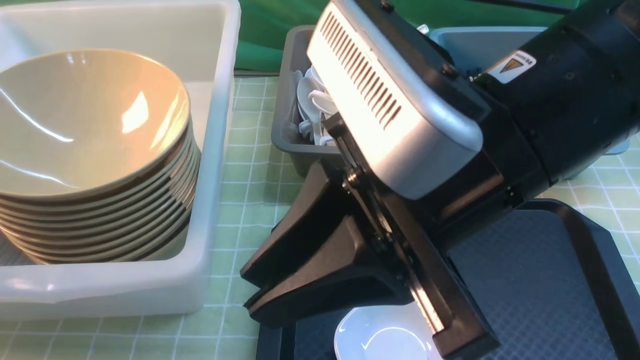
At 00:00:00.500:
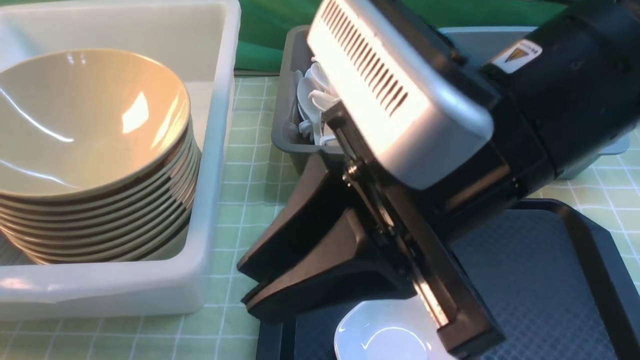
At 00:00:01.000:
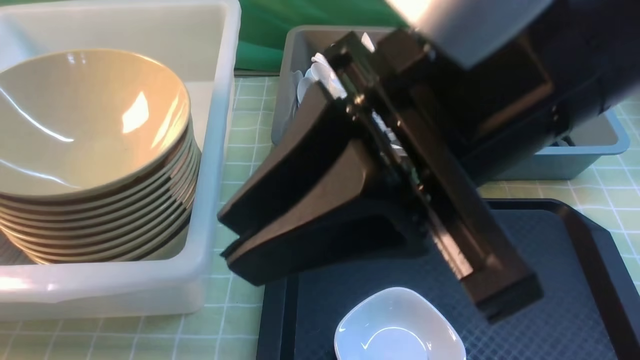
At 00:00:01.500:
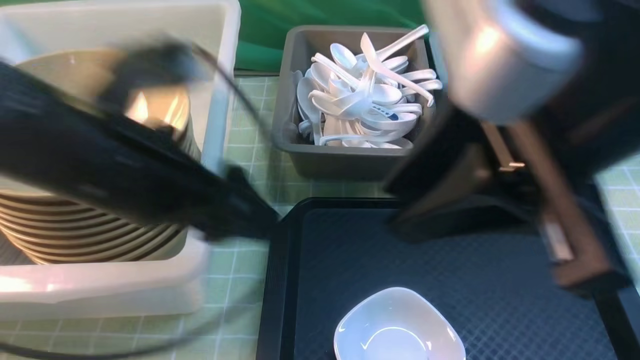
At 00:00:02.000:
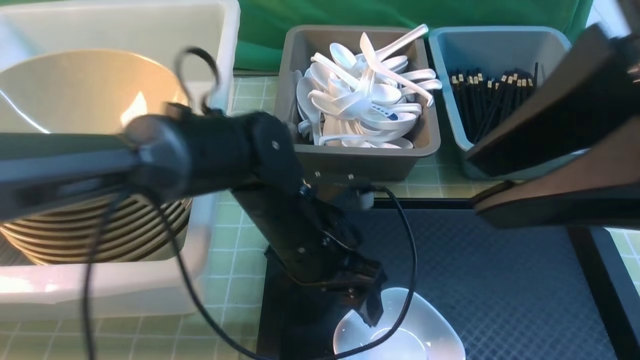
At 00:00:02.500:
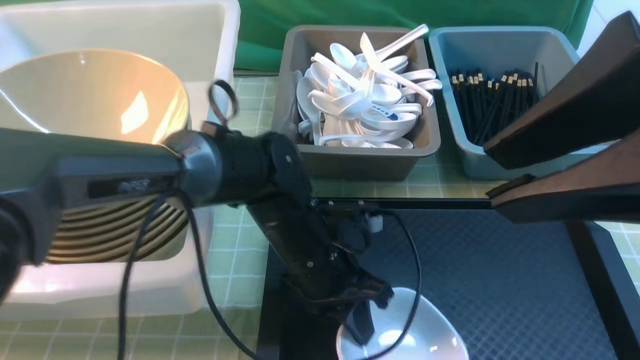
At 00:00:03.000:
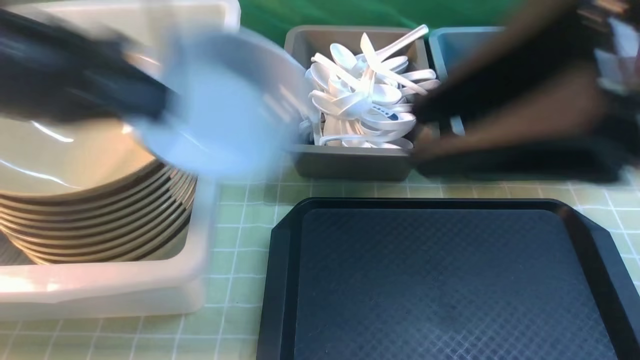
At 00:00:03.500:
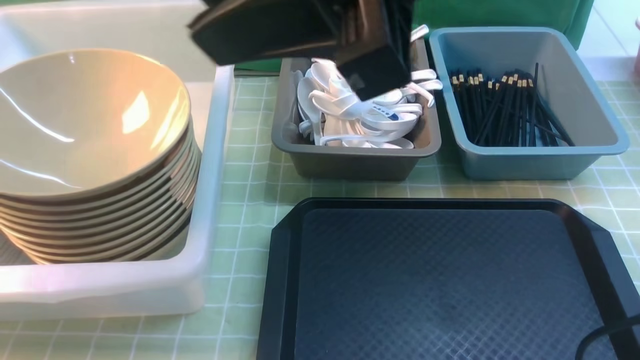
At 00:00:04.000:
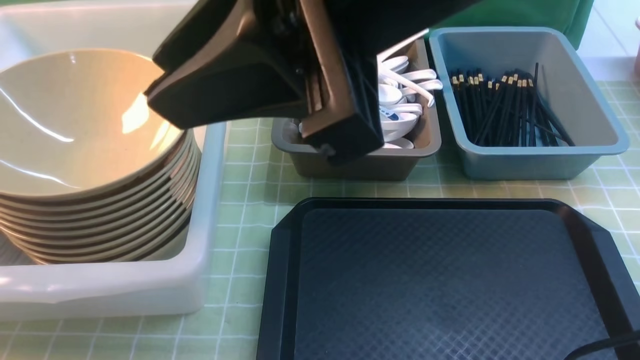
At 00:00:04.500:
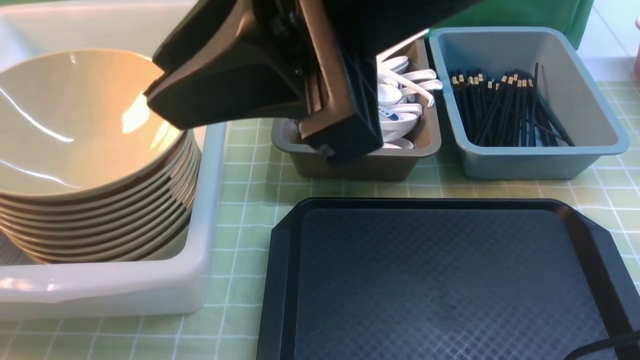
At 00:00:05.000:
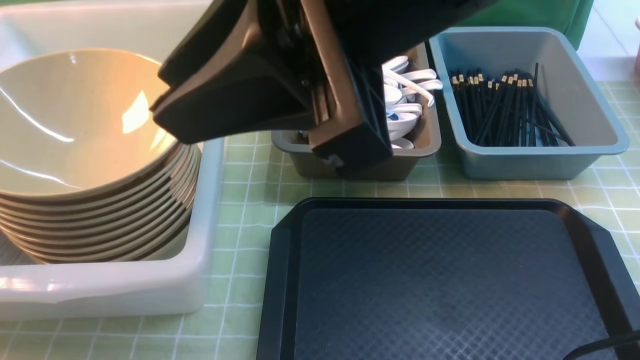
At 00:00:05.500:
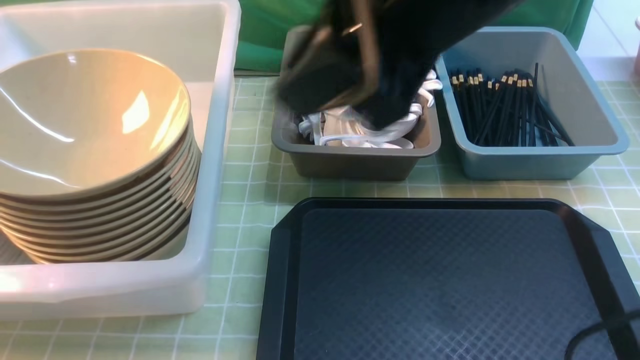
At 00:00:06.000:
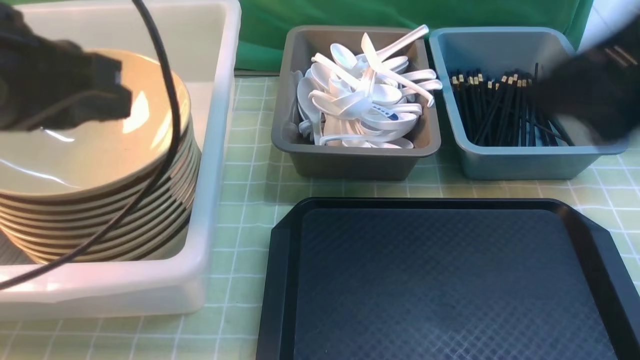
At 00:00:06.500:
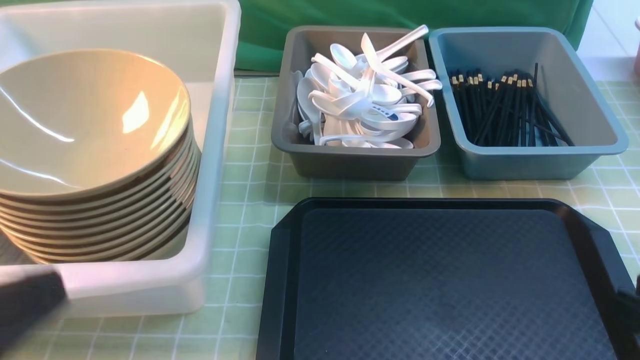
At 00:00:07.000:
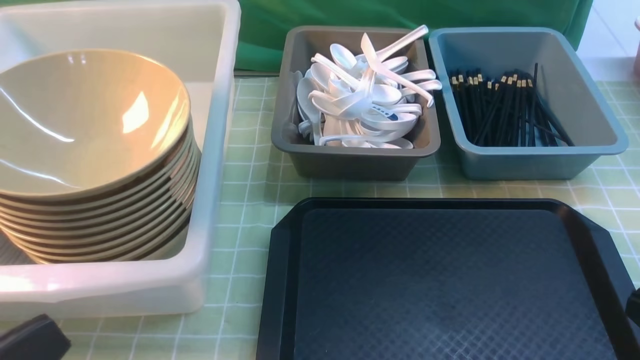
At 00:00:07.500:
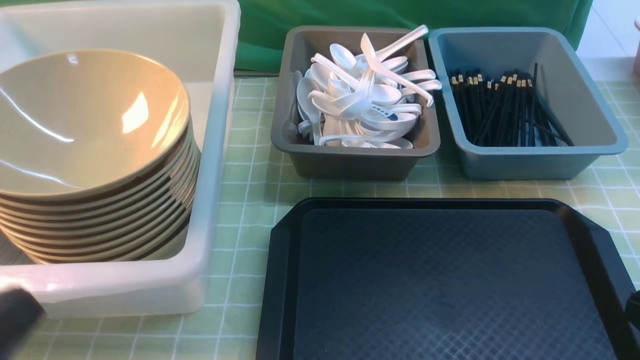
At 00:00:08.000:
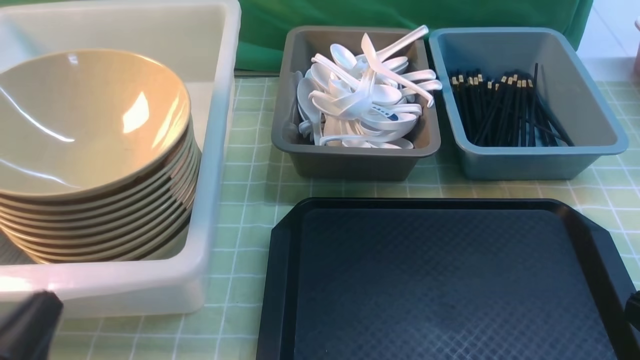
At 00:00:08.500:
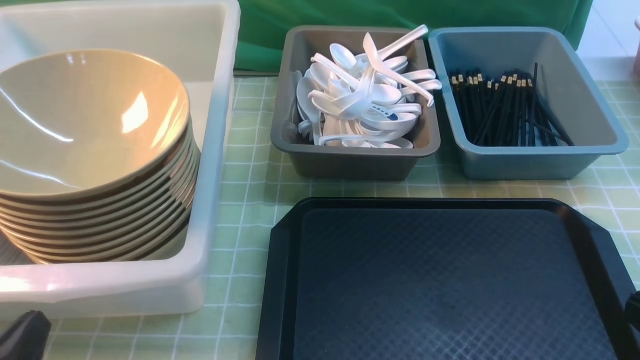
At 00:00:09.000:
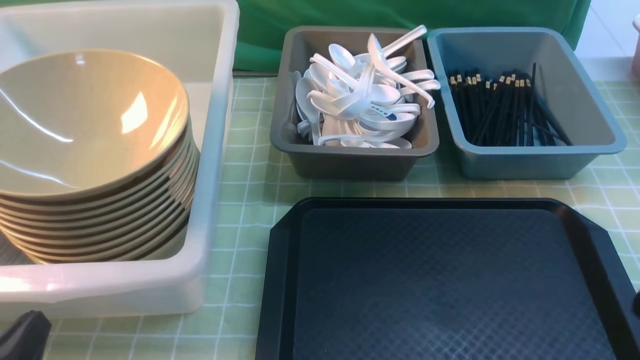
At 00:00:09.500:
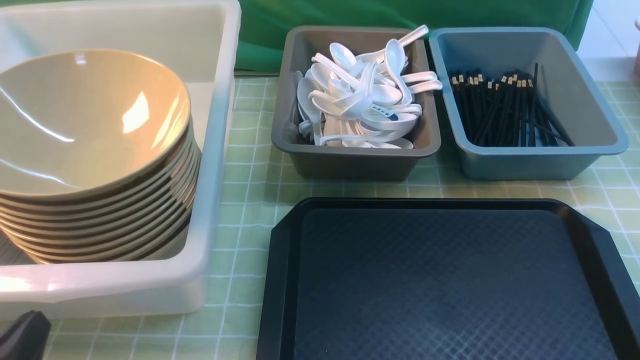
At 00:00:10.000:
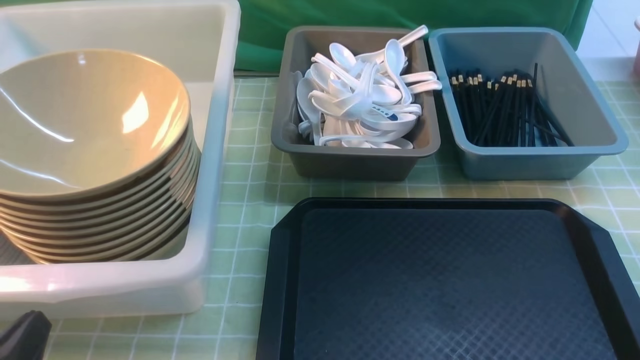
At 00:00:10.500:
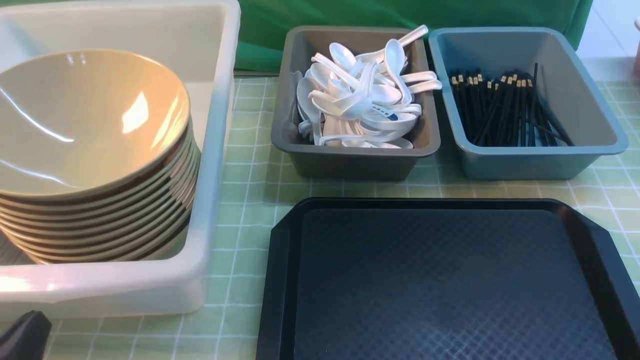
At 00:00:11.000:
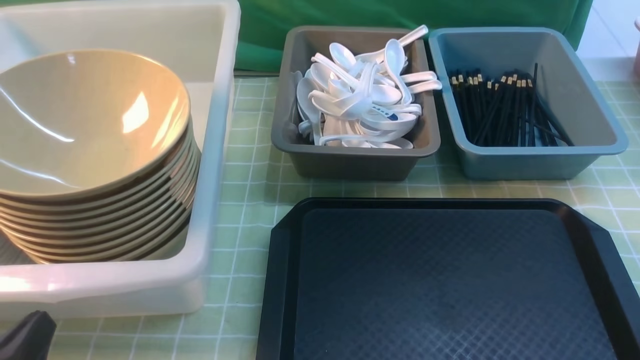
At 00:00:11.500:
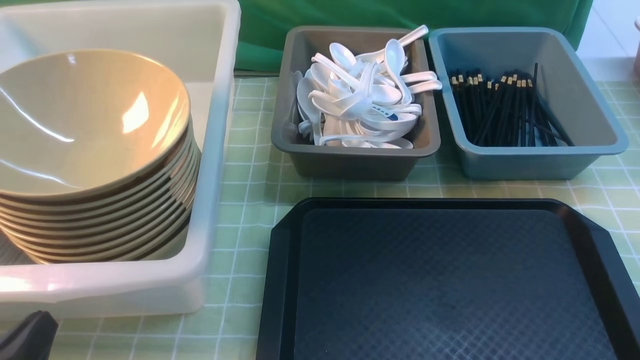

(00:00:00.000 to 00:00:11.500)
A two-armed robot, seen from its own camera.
Task of the whole recording: on green table put chopsticks spoon bowls plates into blue grey white boxes.
Step, 00:00:01.000 - 00:00:02.500: use the left arm to grab the plate.
Step, 00:00:03.000 - 00:00:04.500: use the left arm to put the plate into the large storage box on the left.
00:00:00.000 - 00:00:02.000: The left gripper shifts approximately 40 cm to the right and downward, and opens up. Meanwhile the right gripper goes roughly 10 cm to the right and upward.
00:00:02.000 - 00:00:04.000: The left gripper shifts about 40 cm to the left and upward, and closes up; the right gripper moves to the left and forward, some 15 cm.
00:00:04.000 - 00:00:06.000: The two grippers go approximately 20 cm to the right. The left gripper opens and closes again.
00:00:06.000 - 00:00:07.500: The right gripper goes about 20 cm downward, backward and to the right, and closes its fingers; the left gripper shifts some 20 cm backward and downward.
00:00:07.500 - 00:00:09.500: The left gripper travels downward by some 10 cm; the right gripper changes place by some 5 cm.
